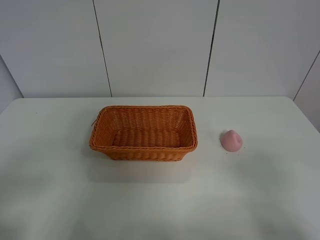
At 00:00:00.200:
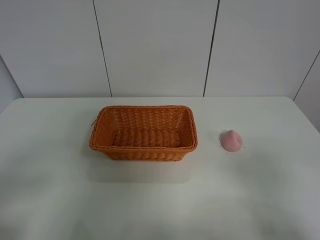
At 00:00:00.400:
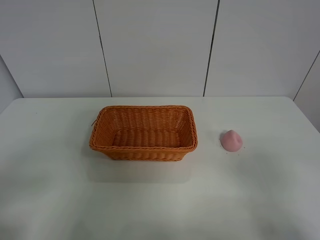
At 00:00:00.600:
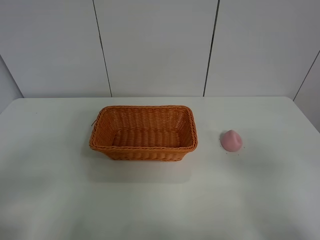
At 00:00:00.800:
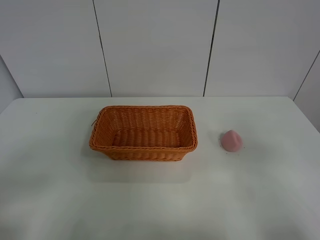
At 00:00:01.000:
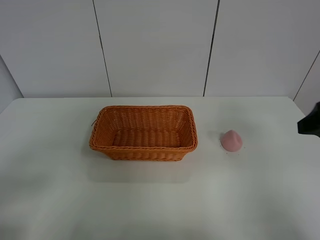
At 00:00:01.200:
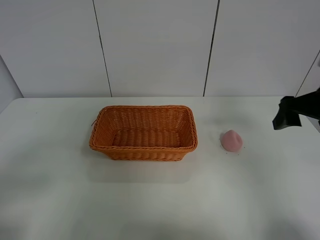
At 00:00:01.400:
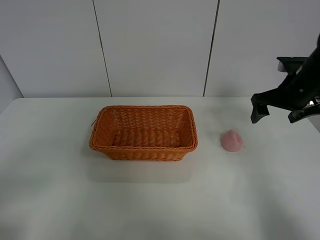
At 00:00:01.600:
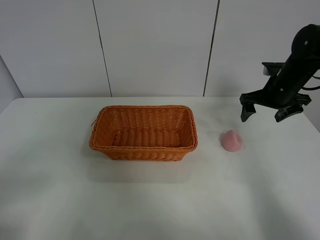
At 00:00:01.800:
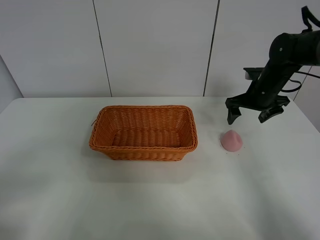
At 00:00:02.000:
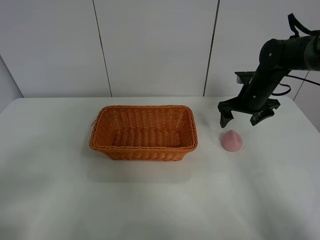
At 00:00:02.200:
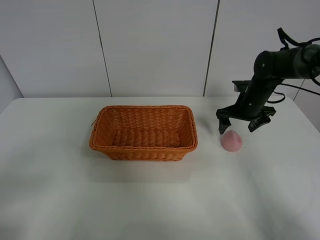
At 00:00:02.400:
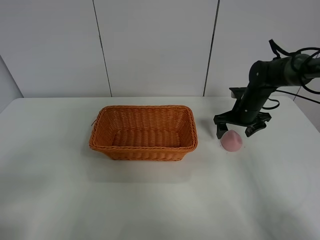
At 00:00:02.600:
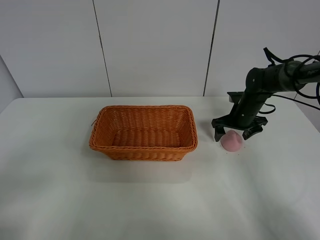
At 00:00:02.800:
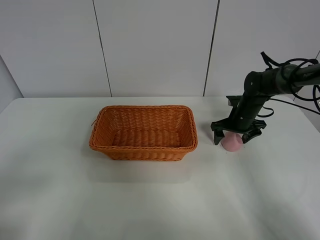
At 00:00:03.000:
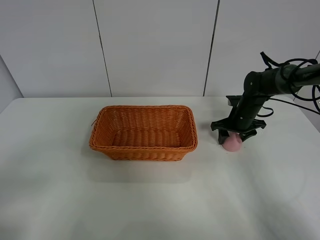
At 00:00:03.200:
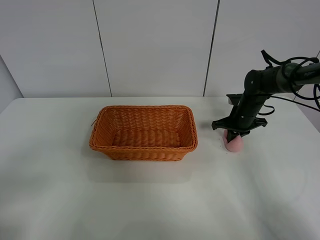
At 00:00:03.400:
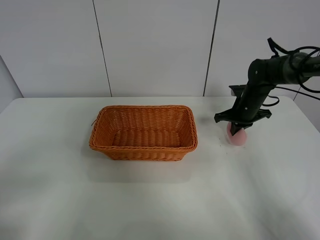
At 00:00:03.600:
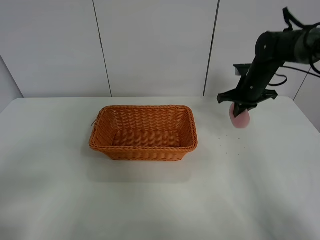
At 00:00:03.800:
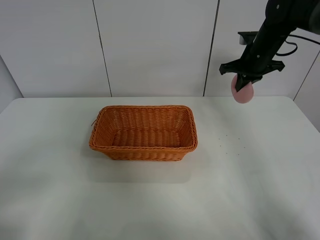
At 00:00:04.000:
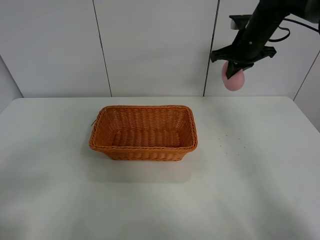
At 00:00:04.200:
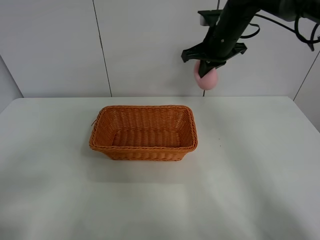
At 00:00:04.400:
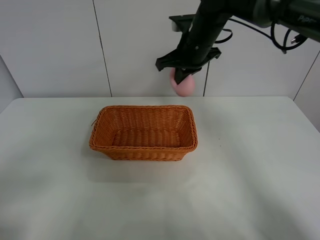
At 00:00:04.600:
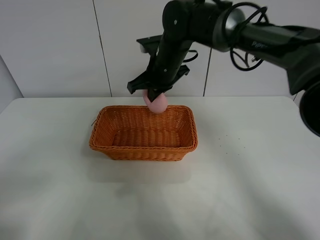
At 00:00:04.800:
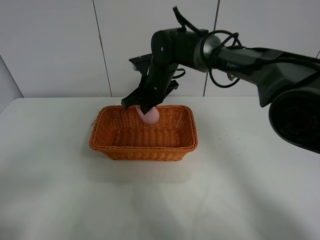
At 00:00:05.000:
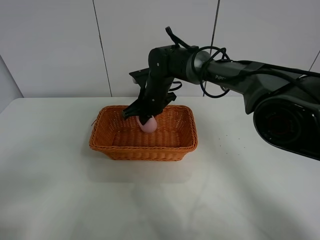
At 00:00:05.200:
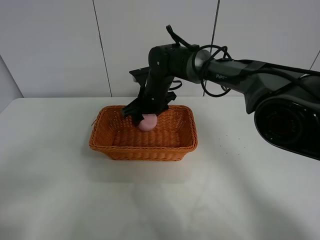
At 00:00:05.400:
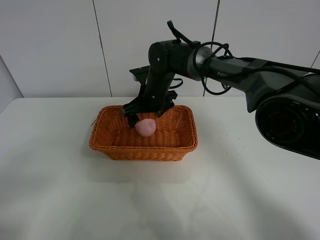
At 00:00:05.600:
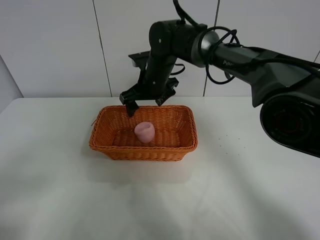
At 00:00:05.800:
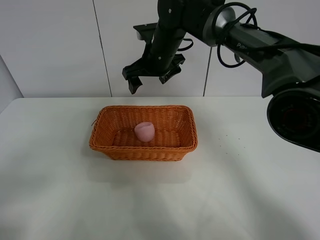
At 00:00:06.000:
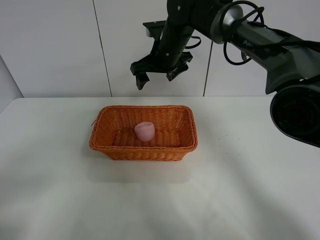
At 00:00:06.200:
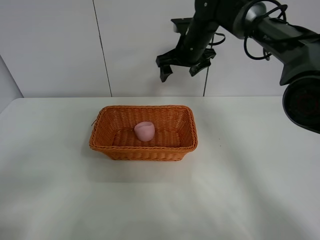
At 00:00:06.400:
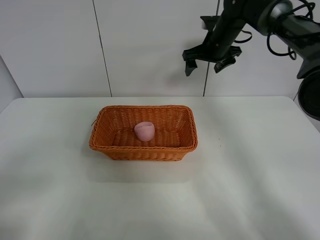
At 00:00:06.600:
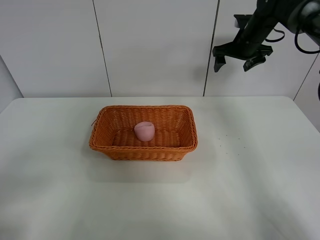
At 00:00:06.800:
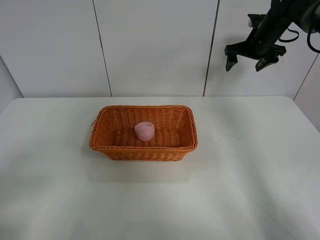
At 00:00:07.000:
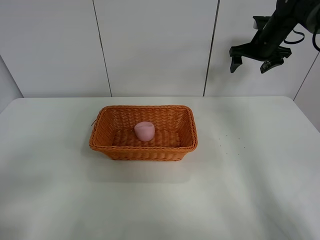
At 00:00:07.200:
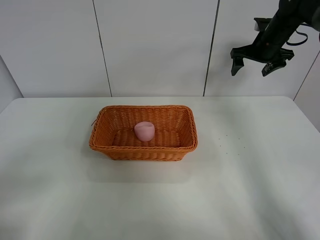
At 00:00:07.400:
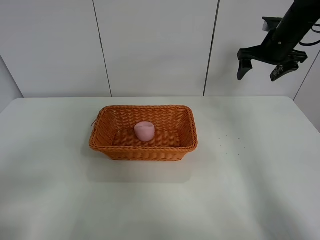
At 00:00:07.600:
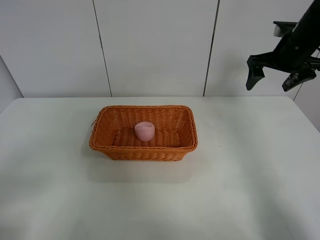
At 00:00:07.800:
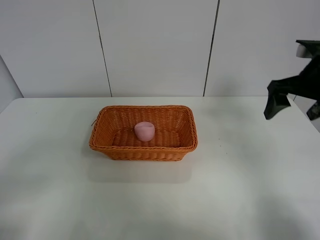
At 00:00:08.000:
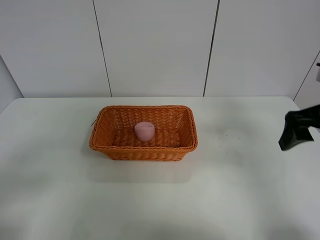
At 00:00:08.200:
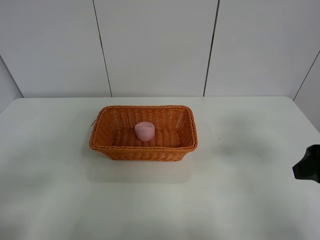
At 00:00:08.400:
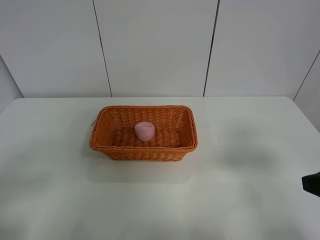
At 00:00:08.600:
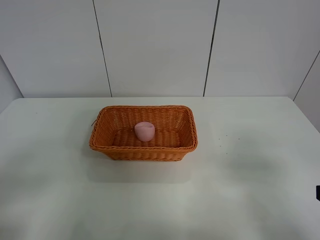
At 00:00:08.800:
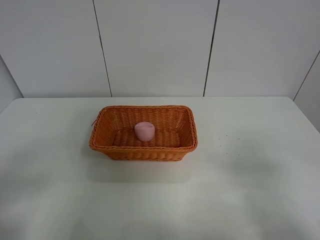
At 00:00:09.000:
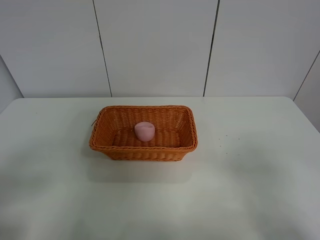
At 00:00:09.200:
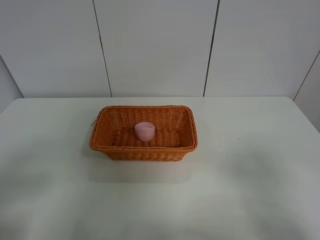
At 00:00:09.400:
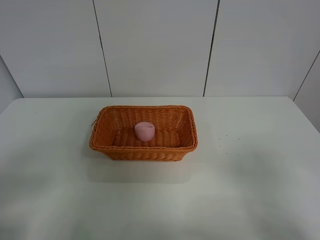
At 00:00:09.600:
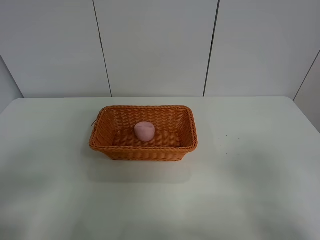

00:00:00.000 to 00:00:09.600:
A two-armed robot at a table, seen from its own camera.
Step, 00:00:00.000 to 00:00:03.200: Grasp the peach with right gripper.
Step, 00:00:03.400 to 00:00:05.800: Place the peach in the basket with right gripper.
00:00:00.000 to 00:00:01.600: The right gripper goes about 40 cm forward.
00:00:01.600 to 00:00:03.200: The right gripper is displaced downward by some 10 cm, and closes up.
00:00:03.200 to 00:00:04.800: The right gripper travels to the left by some 25 cm.
00:00:04.800 to 00:00:06.400: The right gripper is displaced to the right, forward and upward by roughly 20 cm, and opens up.
00:00:06.400 to 00:00:08.000: The right gripper shifts about 30 cm backward and to the right.
00:00:08.000 to 00:00:09.600: The right gripper travels backward by approximately 20 cm.
